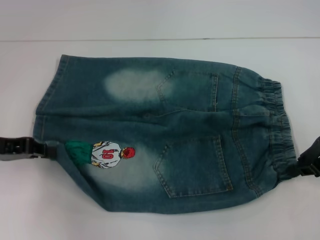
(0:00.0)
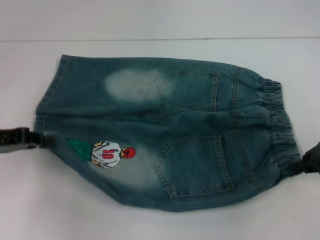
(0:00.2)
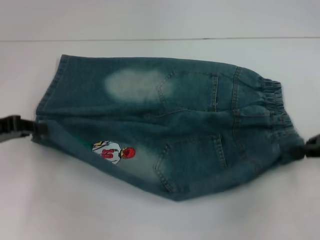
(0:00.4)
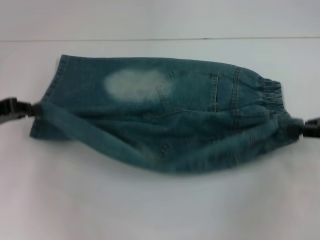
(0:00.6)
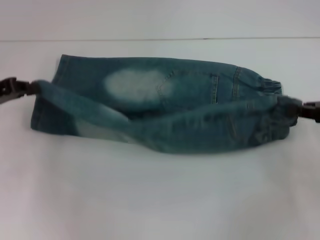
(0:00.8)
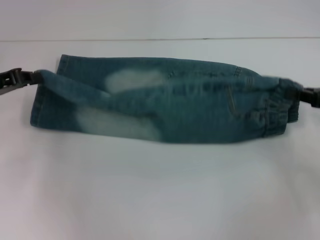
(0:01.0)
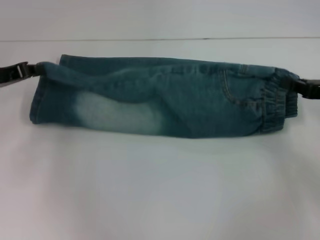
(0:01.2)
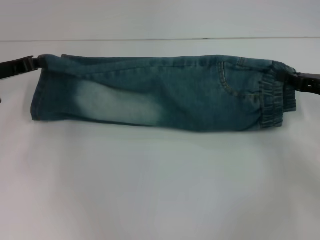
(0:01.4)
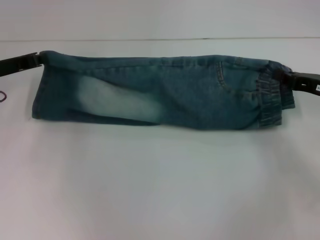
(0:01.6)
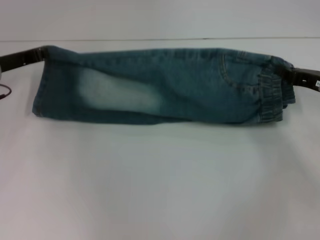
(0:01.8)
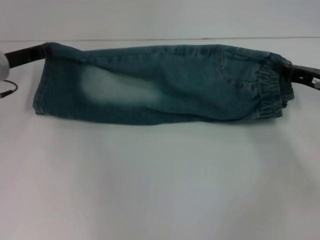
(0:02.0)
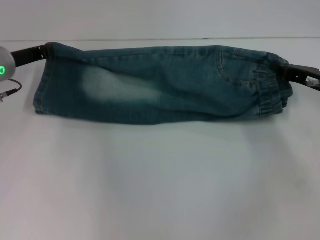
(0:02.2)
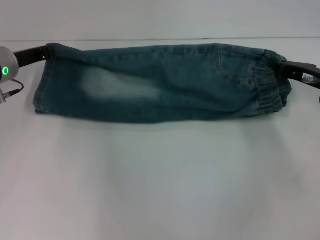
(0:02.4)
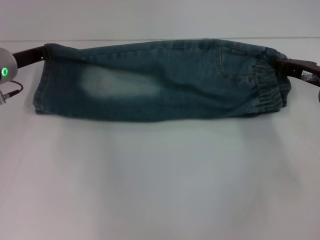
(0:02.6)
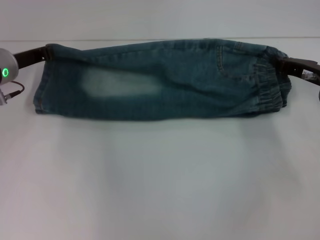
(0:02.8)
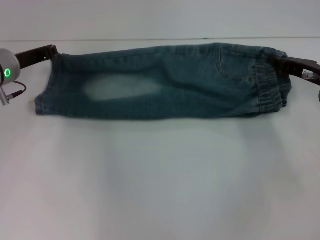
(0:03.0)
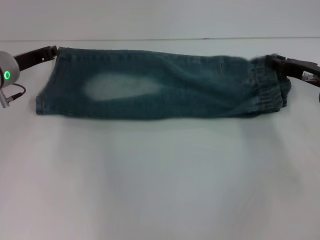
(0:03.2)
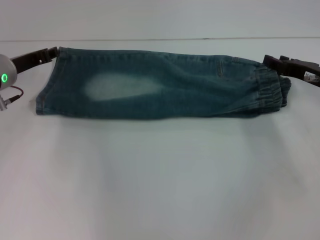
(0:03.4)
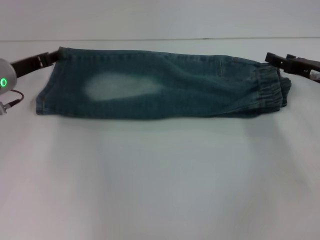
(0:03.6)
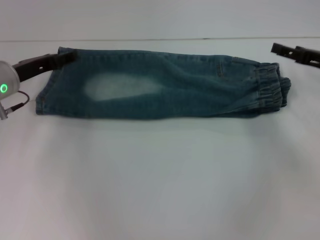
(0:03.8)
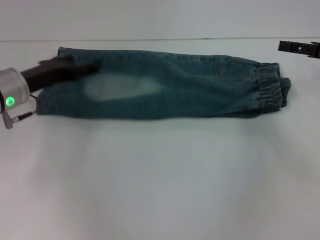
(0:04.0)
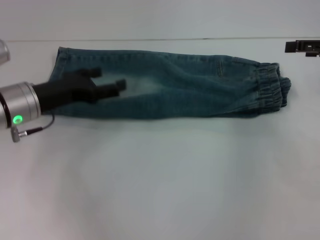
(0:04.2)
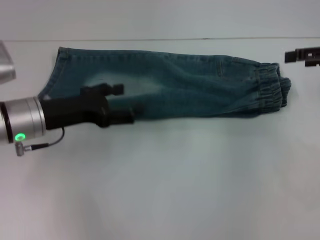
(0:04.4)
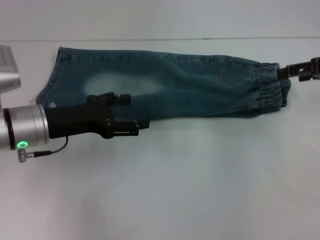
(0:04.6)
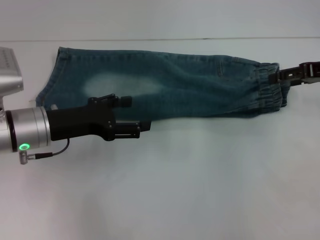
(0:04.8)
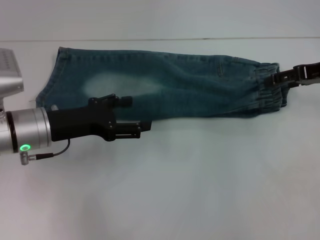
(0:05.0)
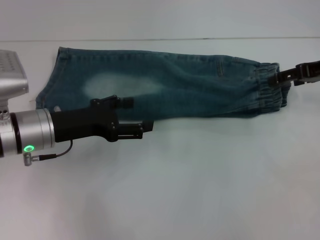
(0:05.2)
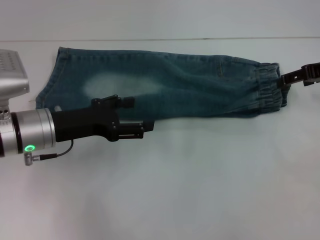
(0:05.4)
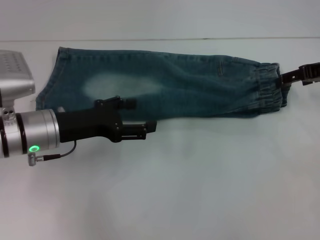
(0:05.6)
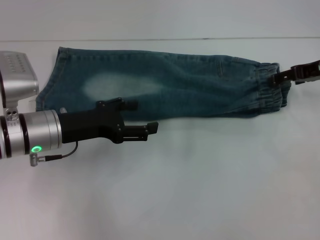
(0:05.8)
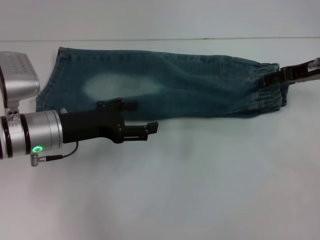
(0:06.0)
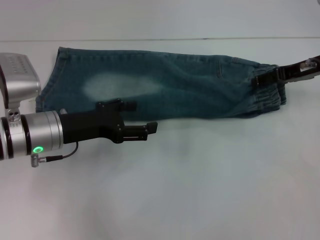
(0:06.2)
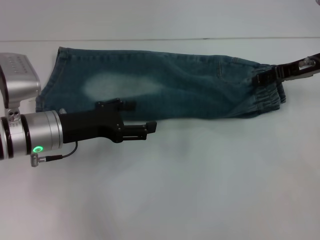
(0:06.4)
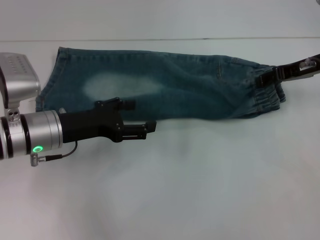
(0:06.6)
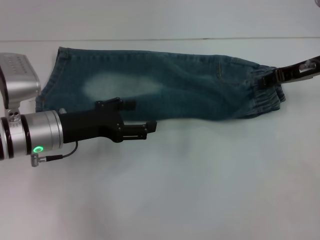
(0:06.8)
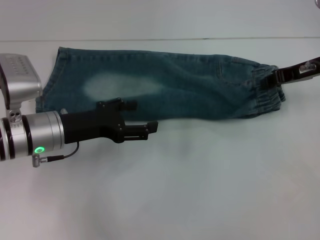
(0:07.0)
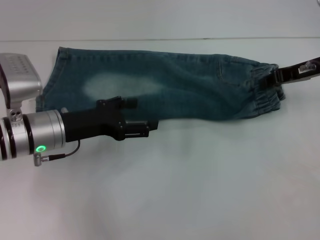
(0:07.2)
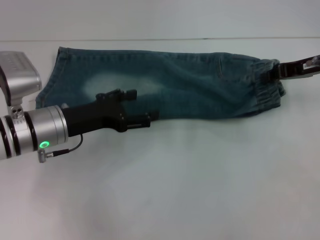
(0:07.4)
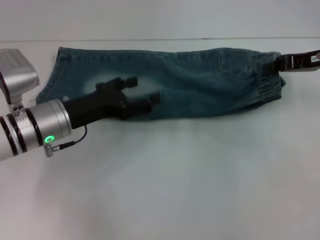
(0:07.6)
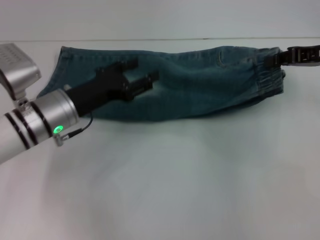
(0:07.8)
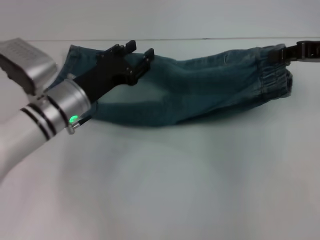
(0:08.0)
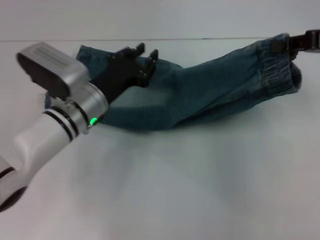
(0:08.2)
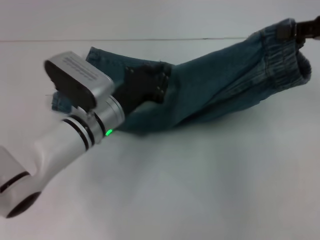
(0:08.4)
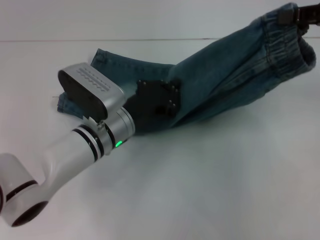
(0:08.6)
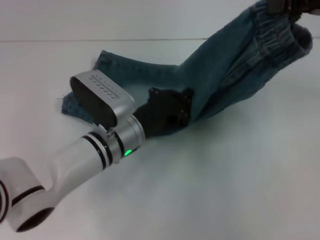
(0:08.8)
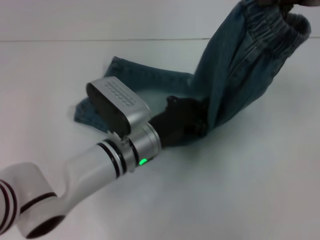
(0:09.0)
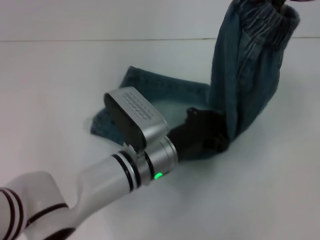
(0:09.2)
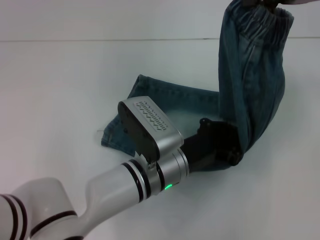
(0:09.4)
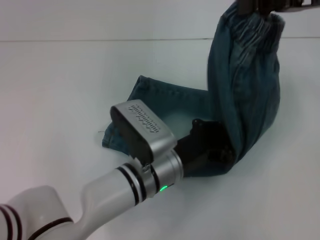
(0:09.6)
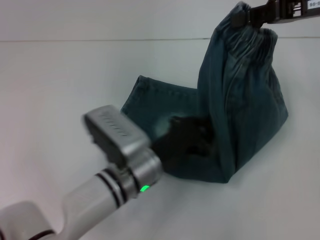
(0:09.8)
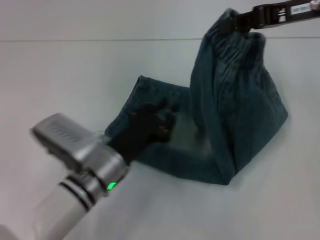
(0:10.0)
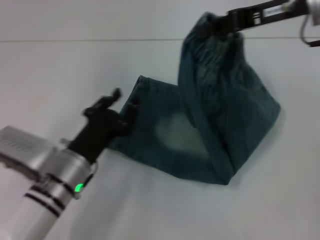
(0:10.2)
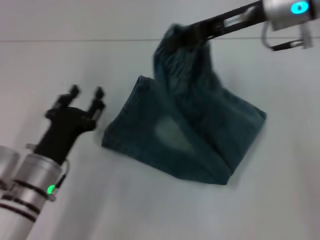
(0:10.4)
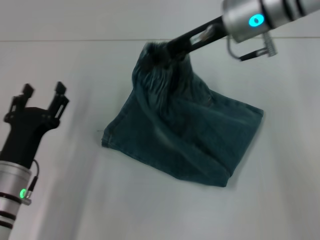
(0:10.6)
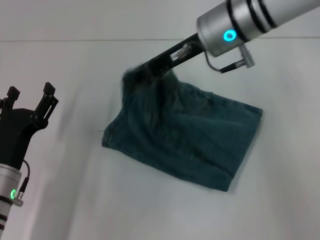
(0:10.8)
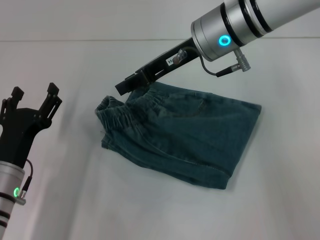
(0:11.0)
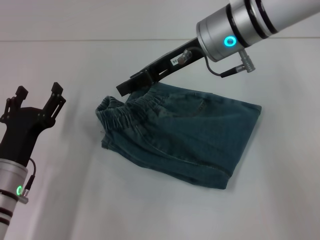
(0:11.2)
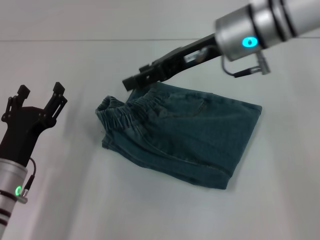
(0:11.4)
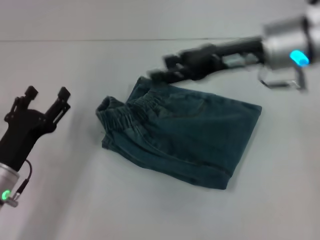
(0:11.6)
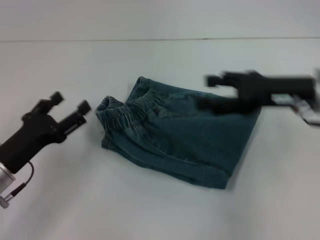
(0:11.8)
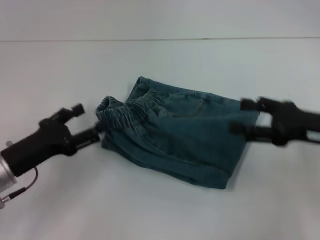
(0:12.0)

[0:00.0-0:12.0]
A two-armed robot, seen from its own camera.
Step, 0:00.2 to 0:03.0: Fold upward with your left hand.
Step, 0:03.4 to 0:07.4: Grab the waistband with your right hand.
Step, 0:07.6 to 0:09.6: Press the middle of the pants with your left hand.
Step, 0:09.8 to 0:11.2: Fold to the left with your right hand.
0:00.0 to 0:01.6: The left gripper moves forward, approximately 10 cm. Meanwhile the right gripper heads downward, covering roughly 5 cm.
0:01.6 to 0:03.0: The grippers move only a little.
0:03.0 to 0:04.4: The left gripper is displaced backward by roughly 10 cm, and opens up. Meanwhile the right gripper is displaced upward and to the right by roughly 10 cm, and opens.
0:04.4 to 0:06.0: The right gripper moves to the left, approximately 5 cm.
0:06.0 to 0:07.6: The right gripper closes.
0:07.6 to 0:09.0: The right gripper heads upward, covering some 10 cm. Meanwhile the left gripper moves to the right, roughly 15 cm, and closes.
0:09.0 to 0:10.4: The left gripper moves to the left and backward, some 15 cm, and opens up. Meanwhile the right gripper heads to the left, covering some 10 cm.
0:10.4 to 0:12.0: The right gripper heads downward, backward and to the right, covering approximately 20 cm, and opens up. Meanwhile the left gripper is displaced to the left by roughly 10 cm, and opens up.

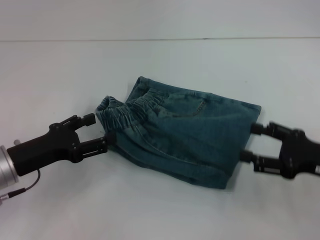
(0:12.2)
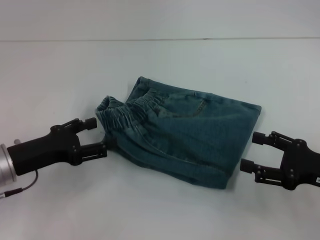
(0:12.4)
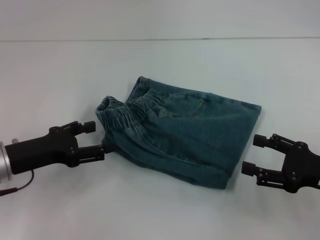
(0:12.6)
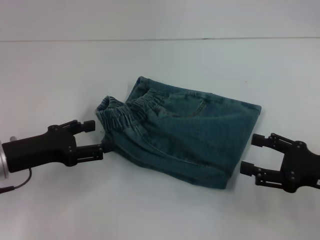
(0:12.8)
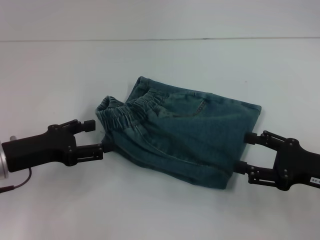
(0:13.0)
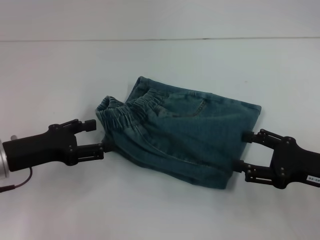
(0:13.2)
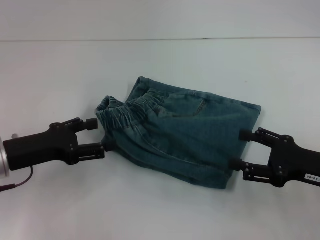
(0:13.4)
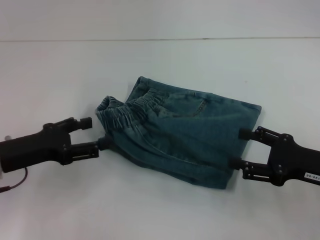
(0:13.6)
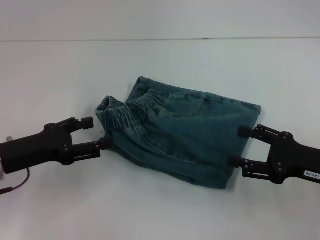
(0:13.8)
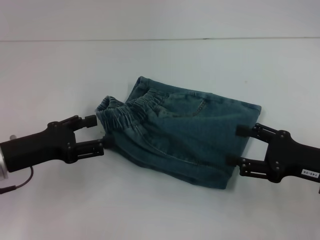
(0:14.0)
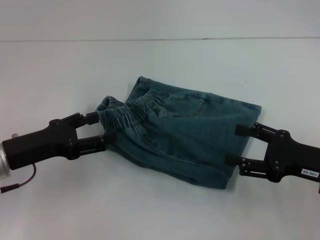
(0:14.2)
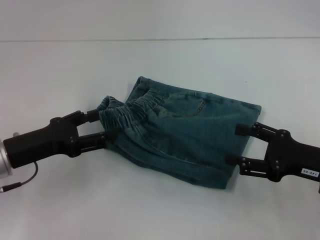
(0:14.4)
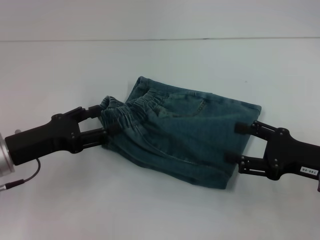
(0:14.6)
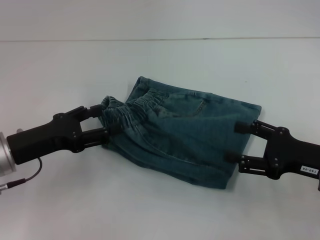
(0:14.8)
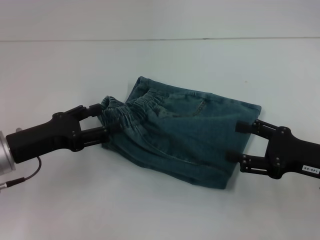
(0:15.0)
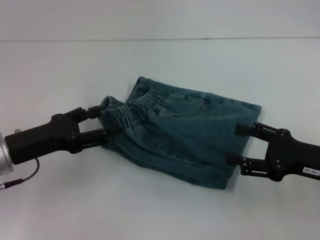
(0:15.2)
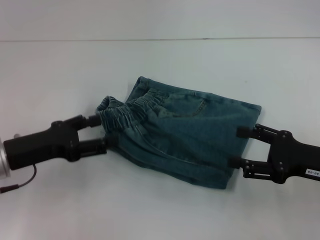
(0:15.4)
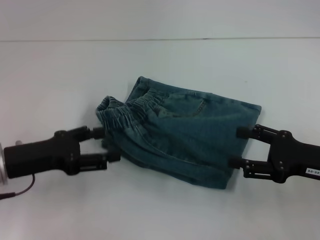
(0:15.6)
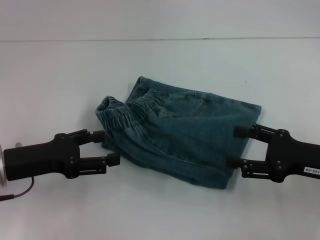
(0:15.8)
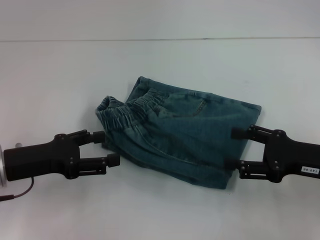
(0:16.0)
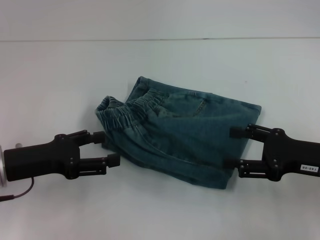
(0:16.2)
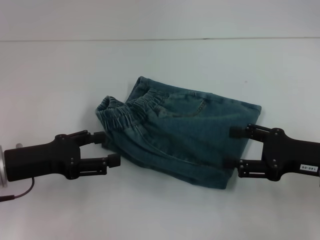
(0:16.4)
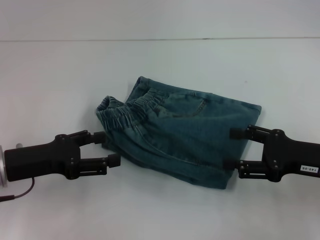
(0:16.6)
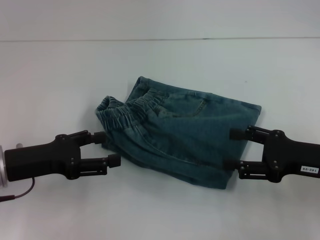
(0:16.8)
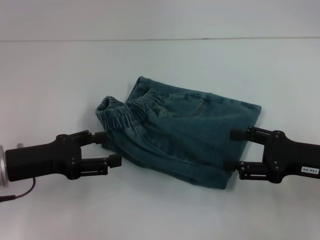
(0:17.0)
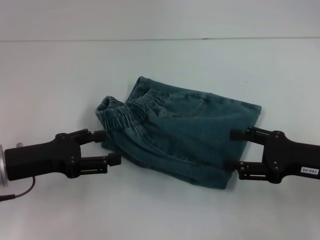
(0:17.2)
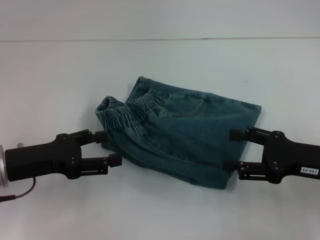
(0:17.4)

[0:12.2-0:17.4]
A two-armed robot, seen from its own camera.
0:12.2 to 0:15.6: There are only small adjustments of the grippers.
0:15.6 to 0:17.4: Neither gripper changes place.
